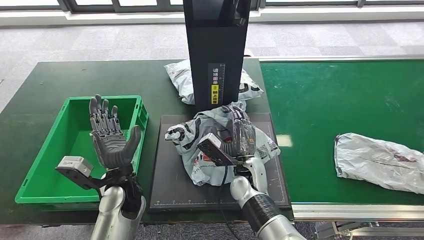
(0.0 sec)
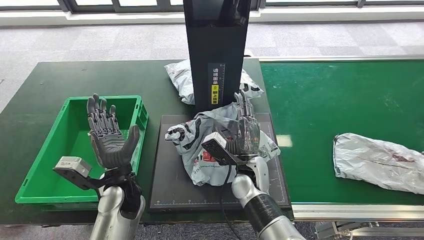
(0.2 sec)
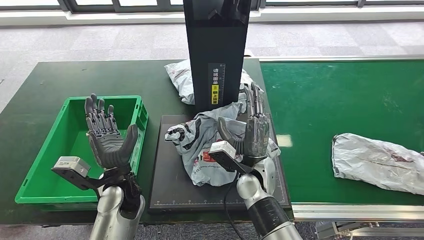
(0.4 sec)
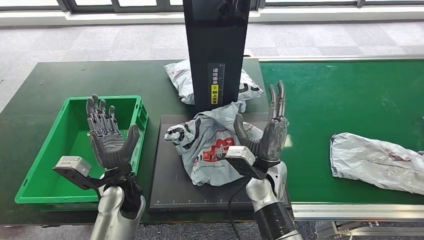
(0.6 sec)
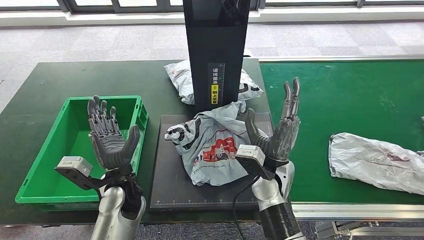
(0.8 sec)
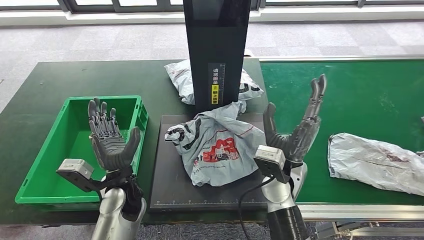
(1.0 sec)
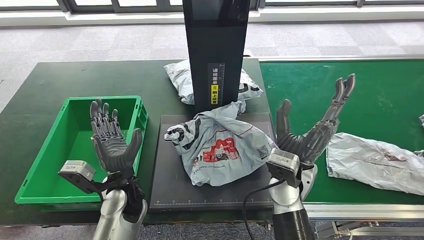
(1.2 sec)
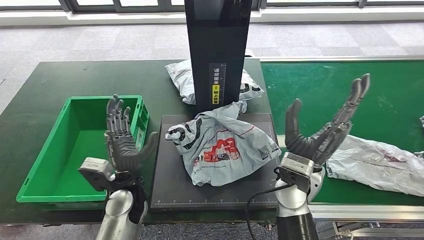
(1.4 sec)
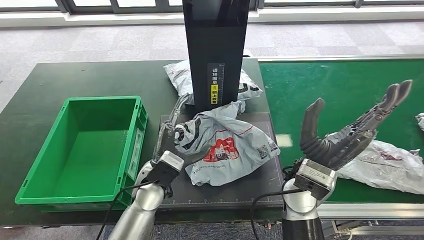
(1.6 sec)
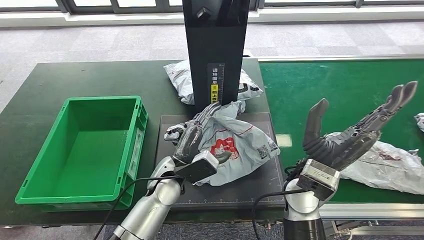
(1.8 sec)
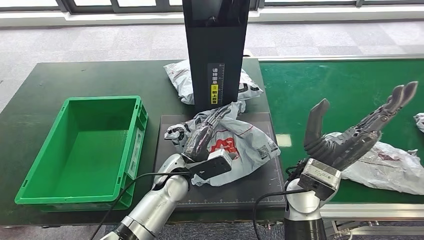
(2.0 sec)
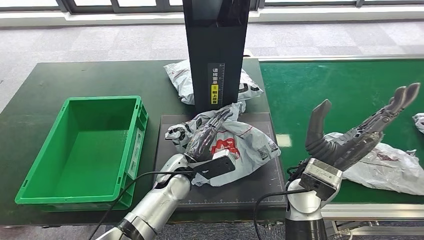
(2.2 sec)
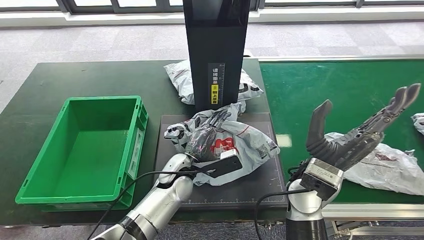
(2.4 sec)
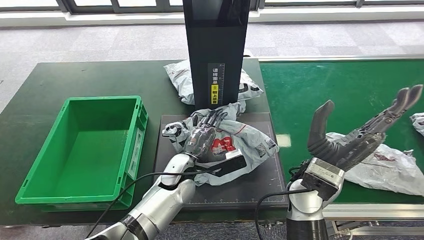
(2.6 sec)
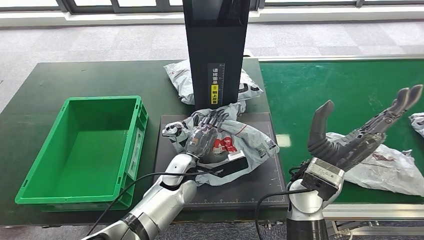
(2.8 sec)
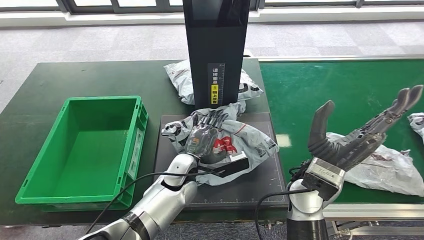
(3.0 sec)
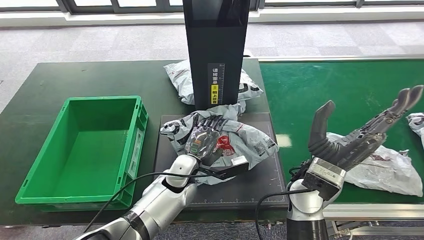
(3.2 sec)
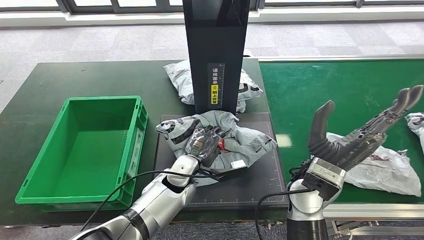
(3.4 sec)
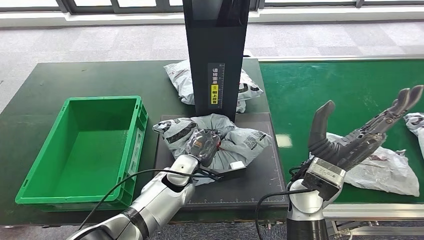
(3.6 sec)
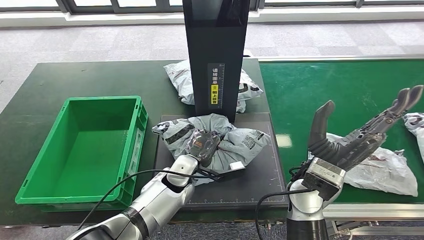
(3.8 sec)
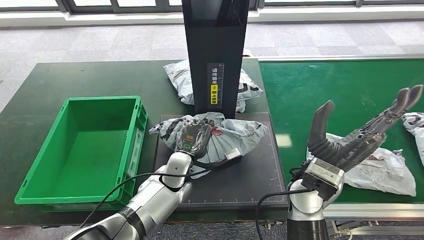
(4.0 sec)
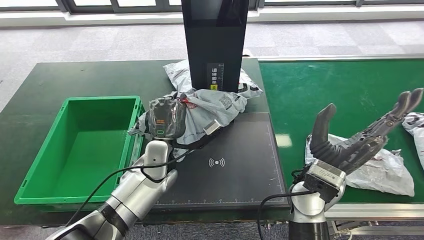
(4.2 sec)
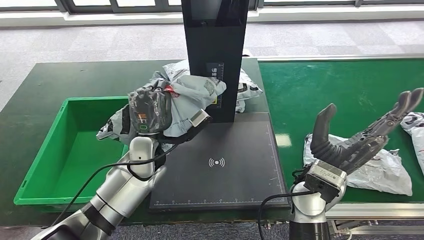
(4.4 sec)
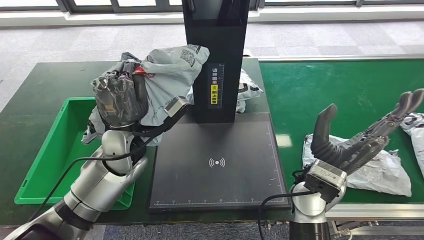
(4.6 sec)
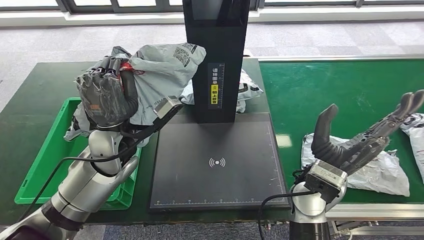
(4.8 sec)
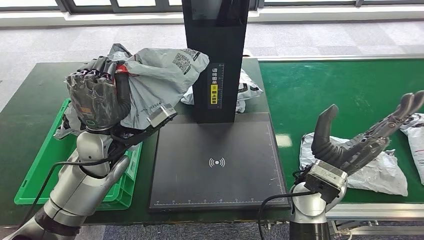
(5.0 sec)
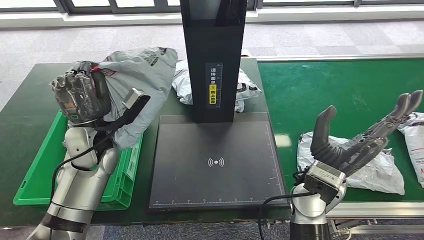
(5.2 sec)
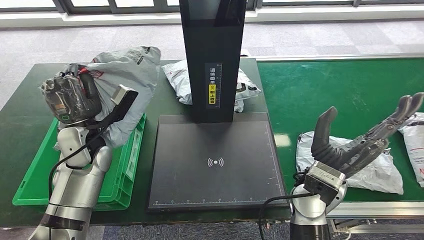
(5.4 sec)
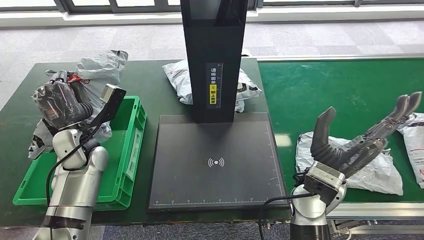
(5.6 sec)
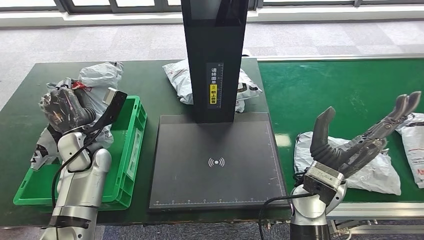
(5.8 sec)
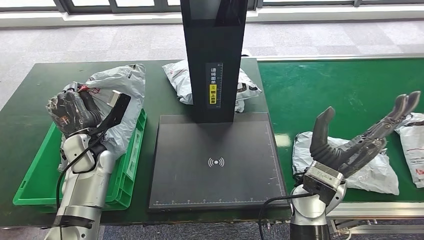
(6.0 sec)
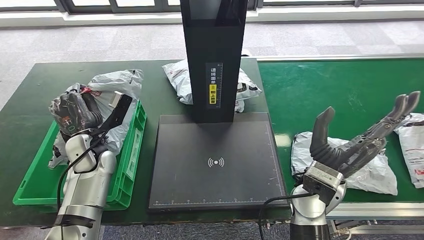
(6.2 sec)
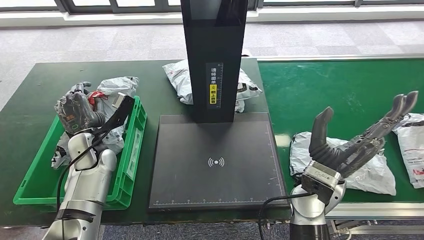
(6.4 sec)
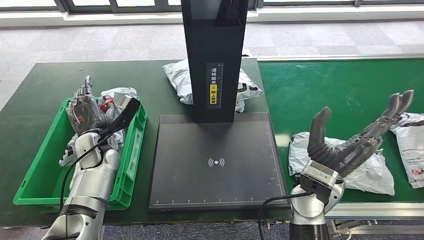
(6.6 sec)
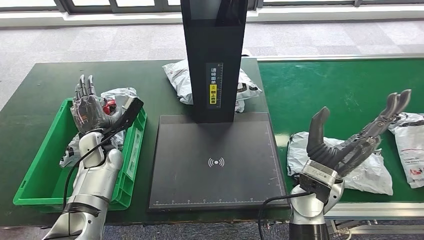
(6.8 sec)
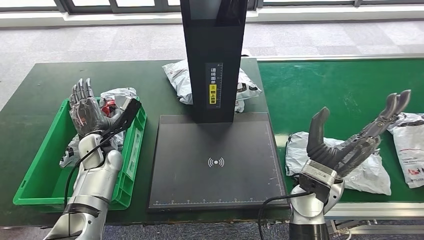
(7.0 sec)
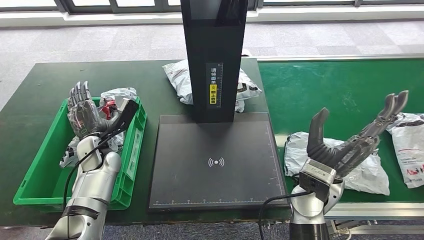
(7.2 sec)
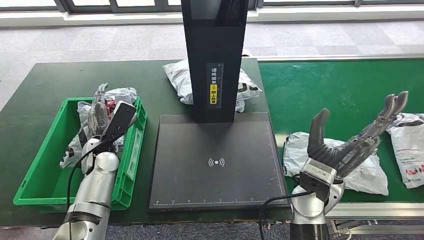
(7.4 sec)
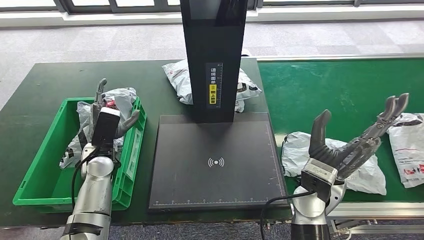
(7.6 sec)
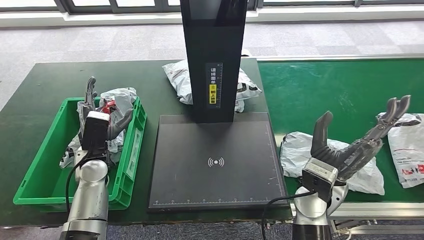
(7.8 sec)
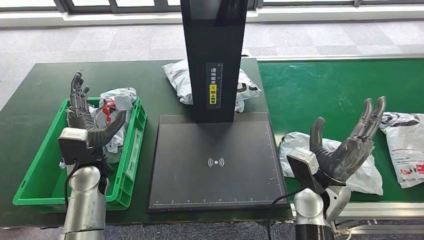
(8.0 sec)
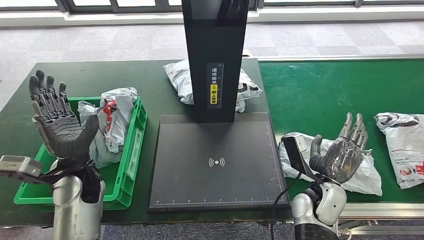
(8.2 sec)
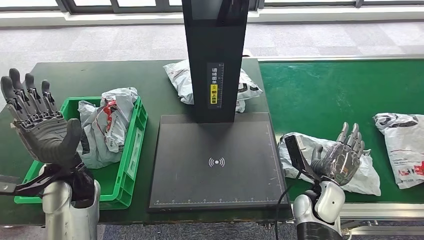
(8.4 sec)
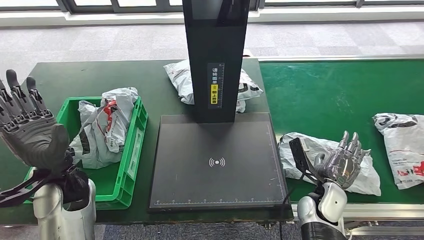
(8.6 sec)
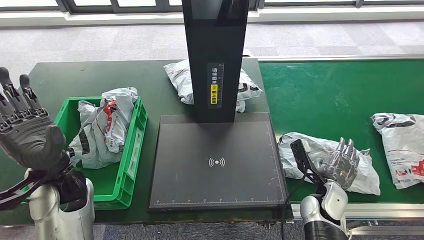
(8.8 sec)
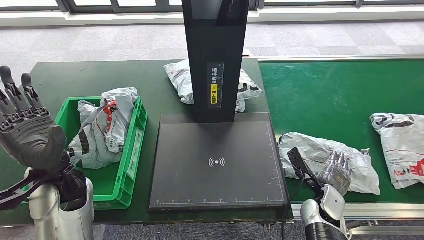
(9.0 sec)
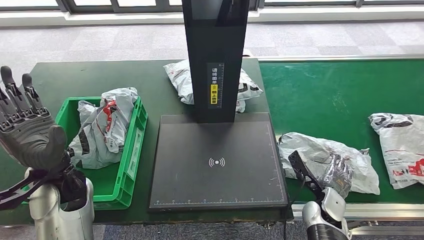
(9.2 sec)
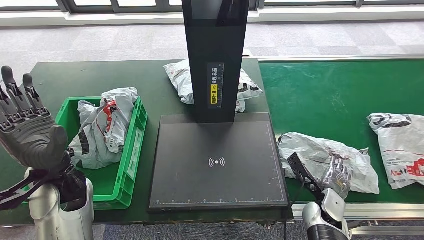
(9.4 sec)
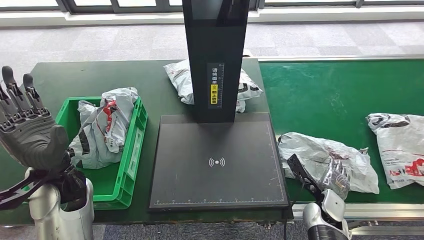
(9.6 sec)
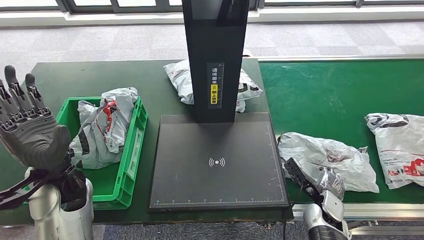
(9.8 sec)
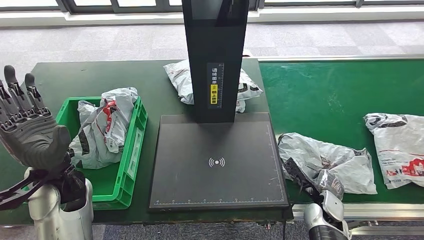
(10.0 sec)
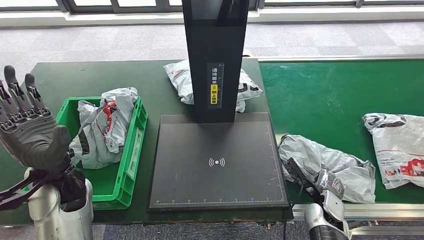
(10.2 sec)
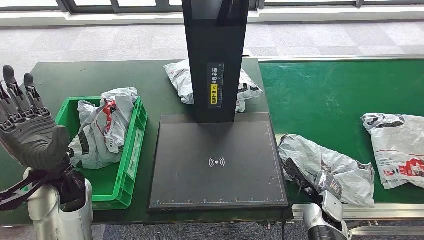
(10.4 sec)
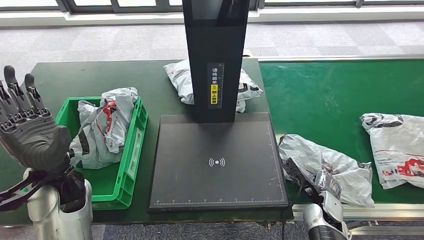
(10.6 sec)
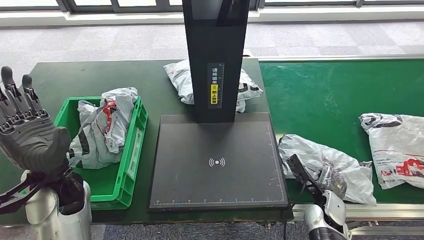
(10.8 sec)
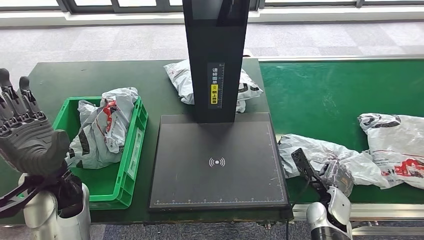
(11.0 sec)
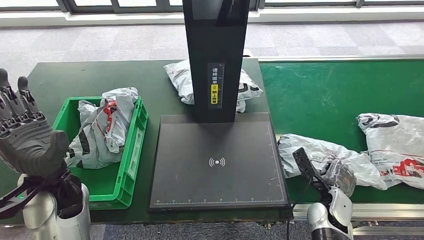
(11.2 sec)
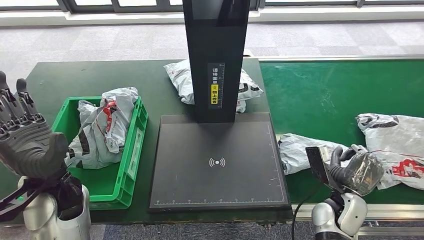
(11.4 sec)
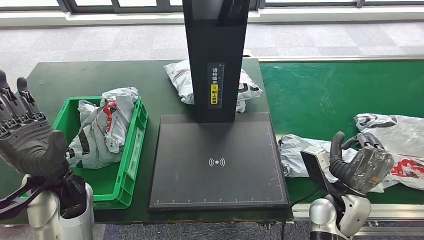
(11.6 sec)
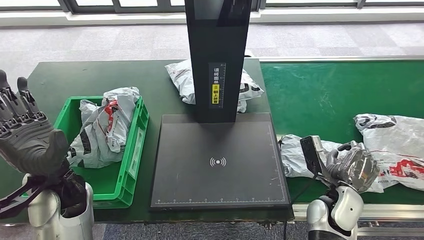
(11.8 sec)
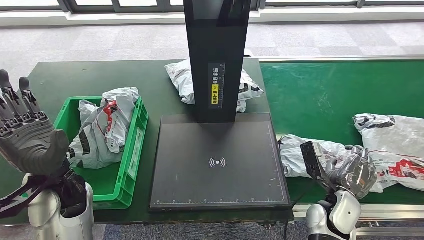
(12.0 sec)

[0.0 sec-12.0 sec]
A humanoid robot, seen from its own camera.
Step, 0.0 sec to 1.0 sec: Place the parcel onto the inbound machine.
Step, 1.4 sec to 5.0 sec: Pick up the parcel from the inbound machine.
Step, 5.2 sec to 8.0 sec: Put the parcel inside the courier box.
1.6 sec to 3.0 sec: The left hand moves to the right, about 5 cm.
9.0 sec to 10.4 sec: The hands stay close to where they were, moving slightly.
10.4 sec to 12.0 sec: The right hand heads upward, covering some 5 cm.

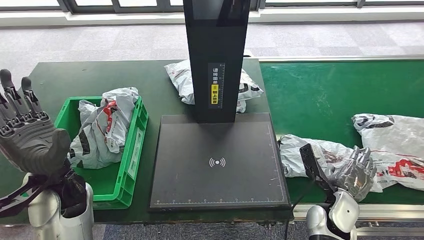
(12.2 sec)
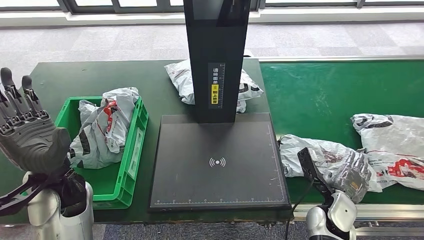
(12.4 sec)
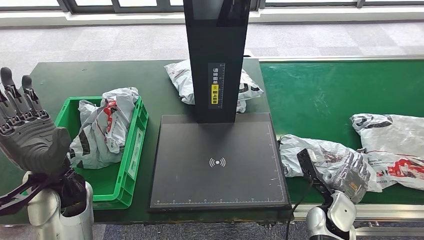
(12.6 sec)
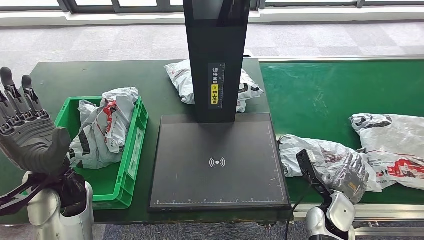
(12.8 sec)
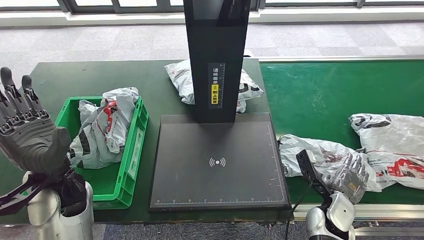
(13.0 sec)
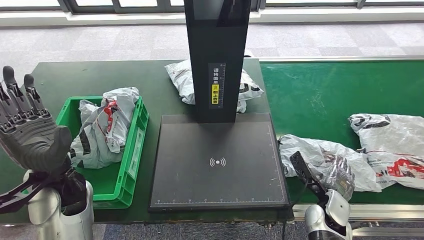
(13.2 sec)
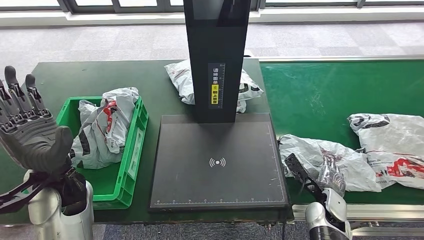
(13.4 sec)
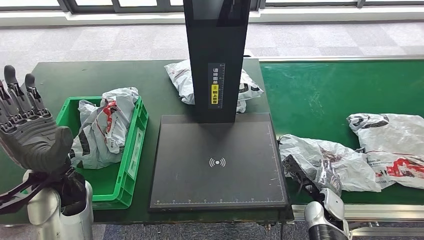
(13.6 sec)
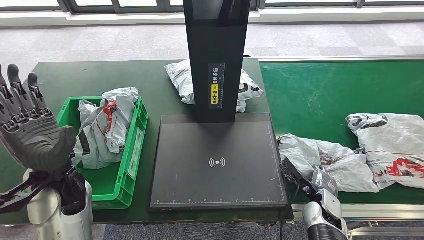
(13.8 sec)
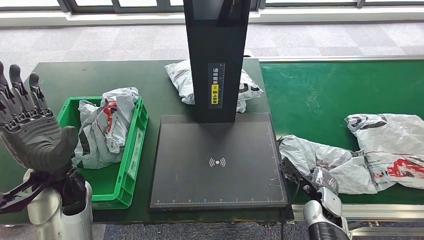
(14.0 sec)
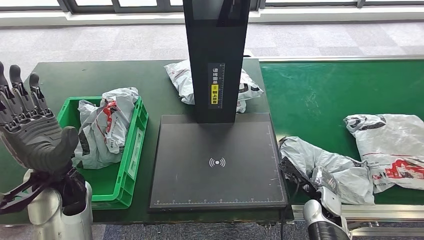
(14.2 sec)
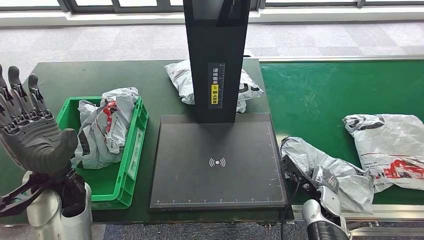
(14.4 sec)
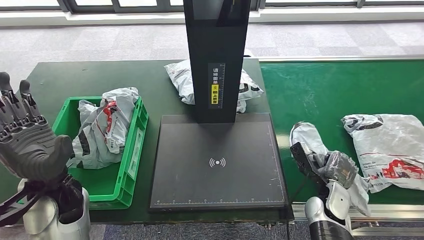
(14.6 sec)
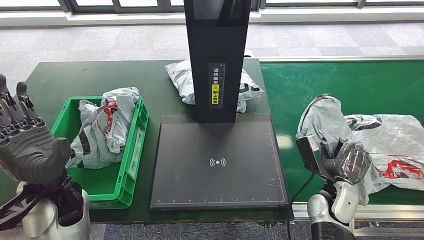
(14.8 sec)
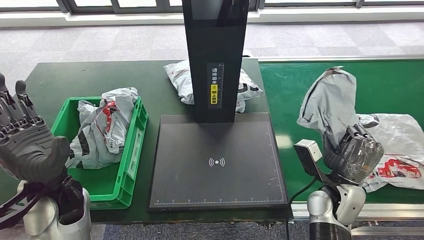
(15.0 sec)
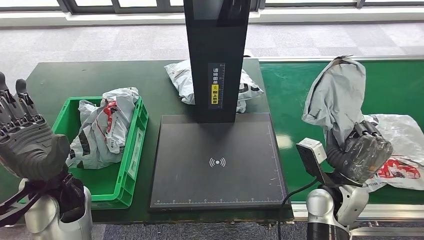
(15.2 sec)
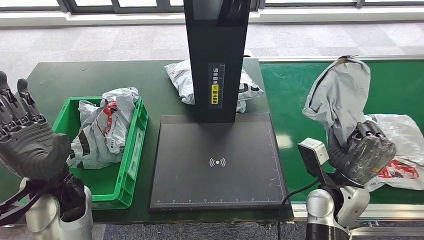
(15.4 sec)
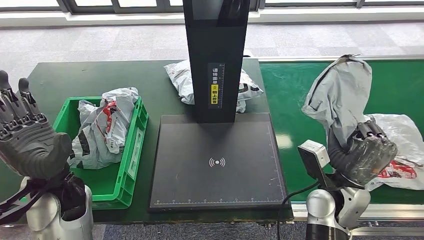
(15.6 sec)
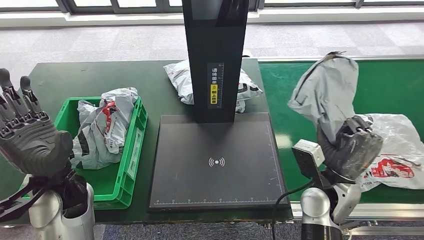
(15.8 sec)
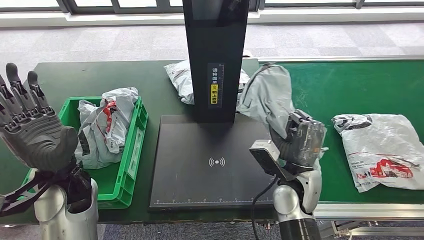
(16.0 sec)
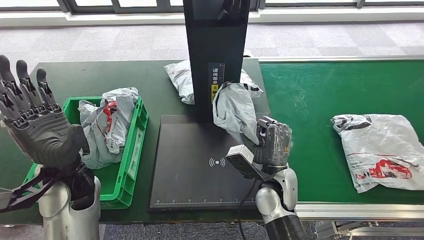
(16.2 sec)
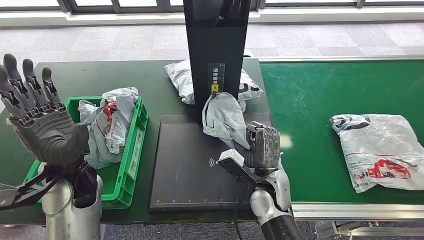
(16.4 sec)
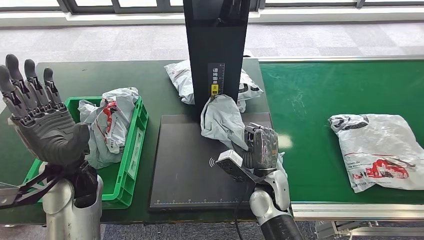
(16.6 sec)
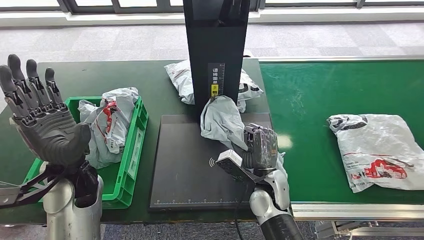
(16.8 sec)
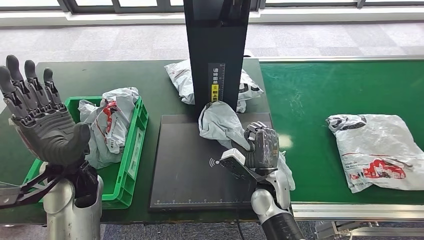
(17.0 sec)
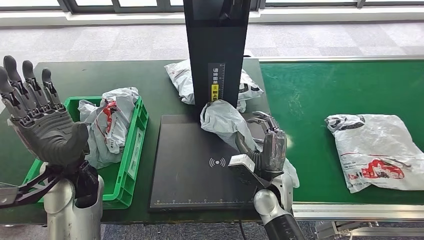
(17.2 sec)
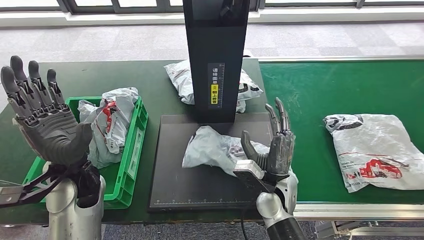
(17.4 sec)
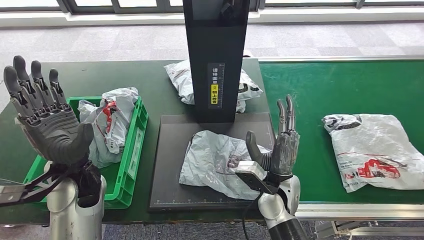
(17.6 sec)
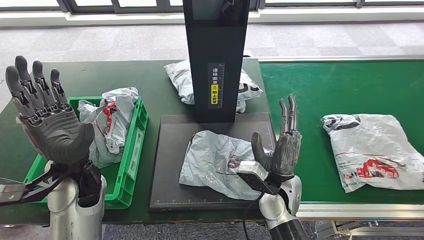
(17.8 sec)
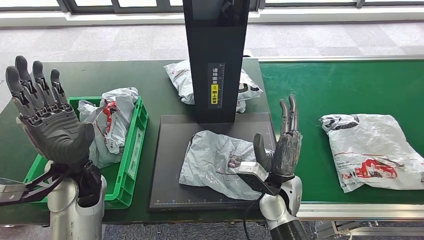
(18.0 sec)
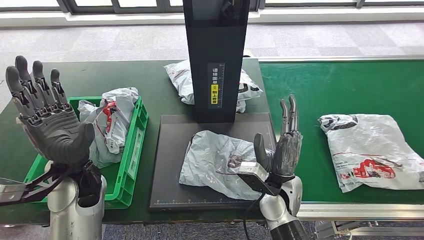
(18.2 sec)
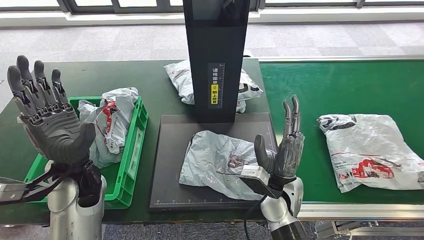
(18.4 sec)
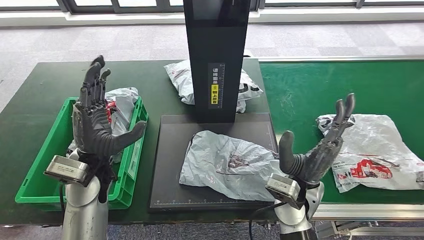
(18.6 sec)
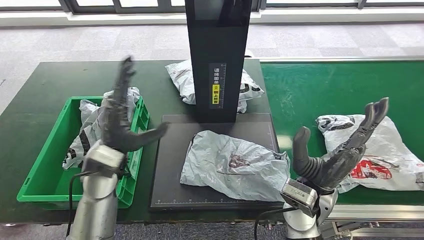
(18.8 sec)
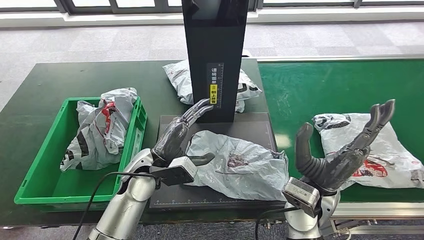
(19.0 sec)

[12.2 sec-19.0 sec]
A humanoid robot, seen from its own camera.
Step, 12.2 sec to 15.0 sec: Pick up the parcel from the conveyor belt.
Step, 15.2 sec to 18.8 sec: Place the parcel onto the inbound machine.
12.2 sec to 13.6 sec: The right hand is displaced downward by roughly 5 cm.
